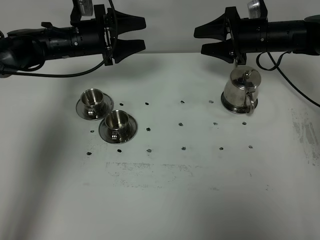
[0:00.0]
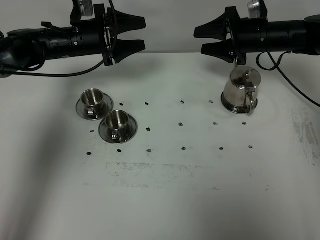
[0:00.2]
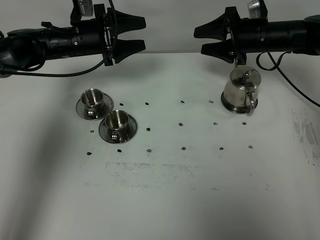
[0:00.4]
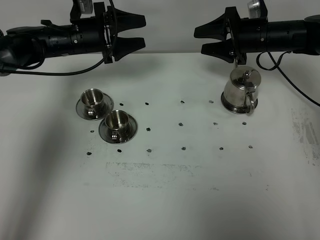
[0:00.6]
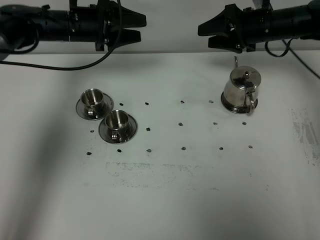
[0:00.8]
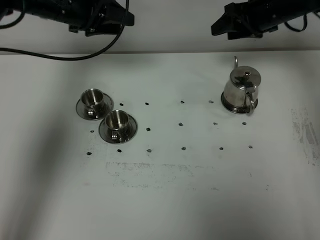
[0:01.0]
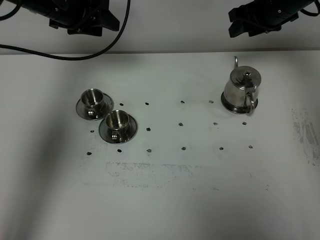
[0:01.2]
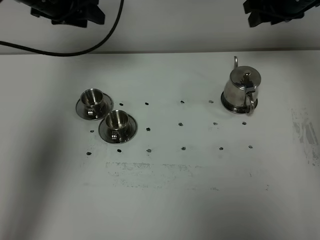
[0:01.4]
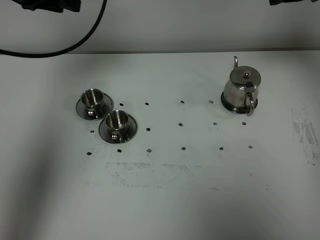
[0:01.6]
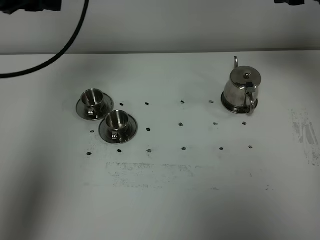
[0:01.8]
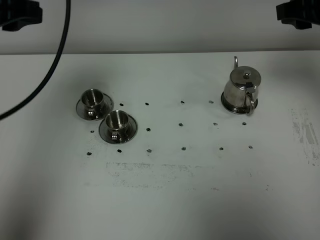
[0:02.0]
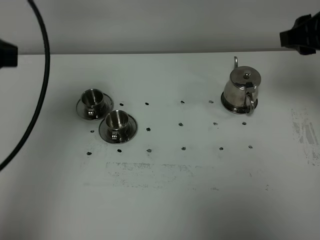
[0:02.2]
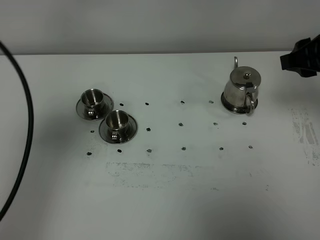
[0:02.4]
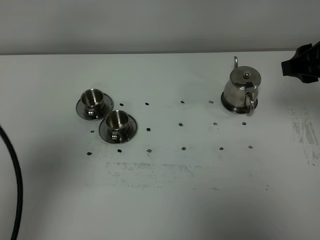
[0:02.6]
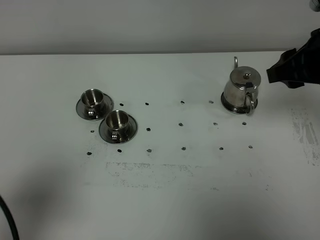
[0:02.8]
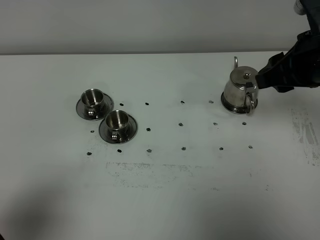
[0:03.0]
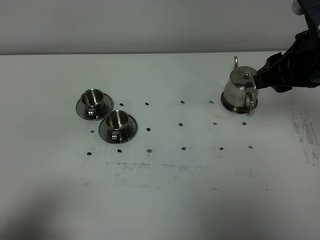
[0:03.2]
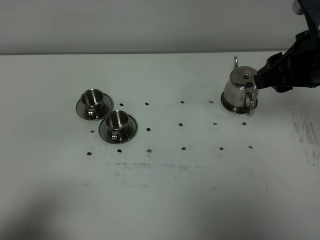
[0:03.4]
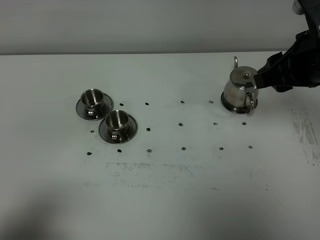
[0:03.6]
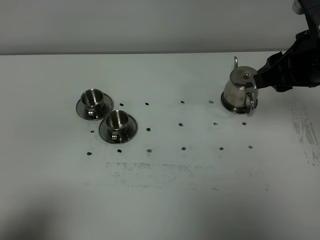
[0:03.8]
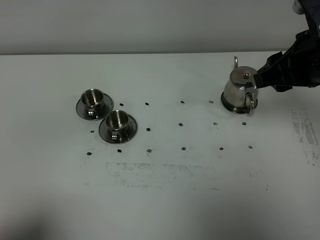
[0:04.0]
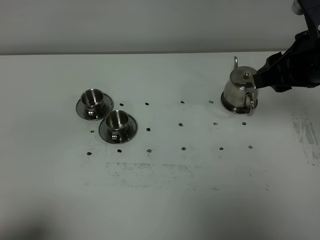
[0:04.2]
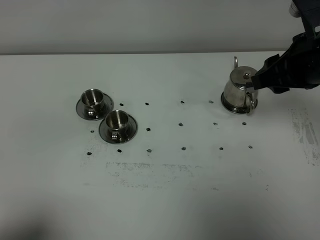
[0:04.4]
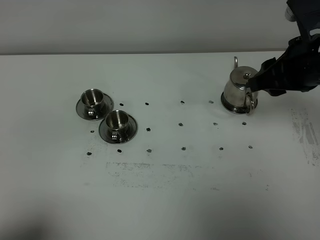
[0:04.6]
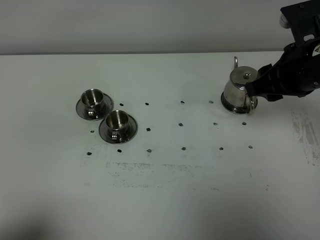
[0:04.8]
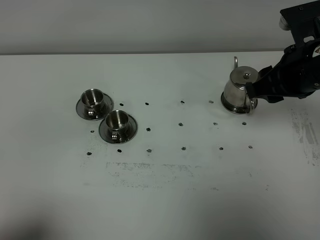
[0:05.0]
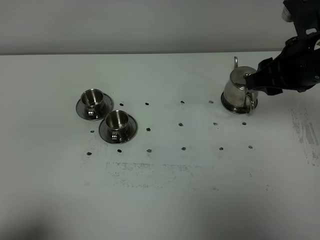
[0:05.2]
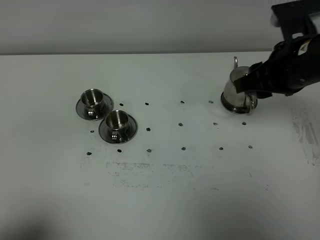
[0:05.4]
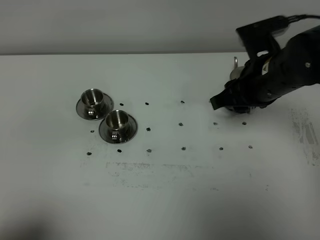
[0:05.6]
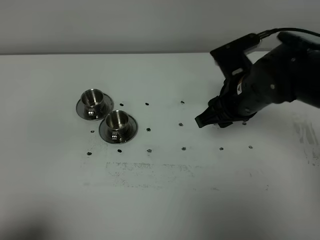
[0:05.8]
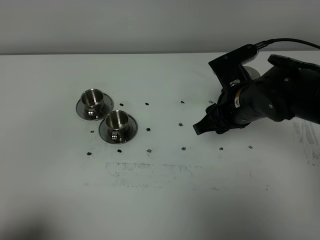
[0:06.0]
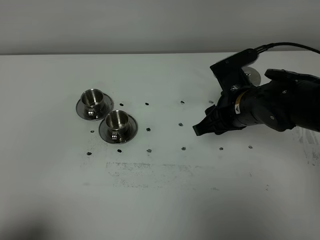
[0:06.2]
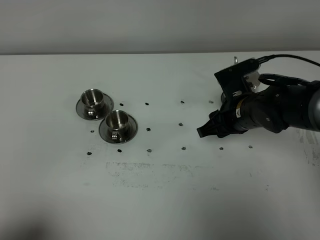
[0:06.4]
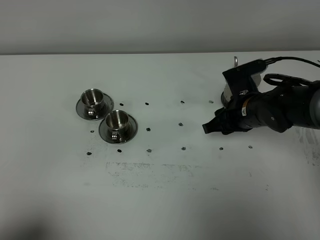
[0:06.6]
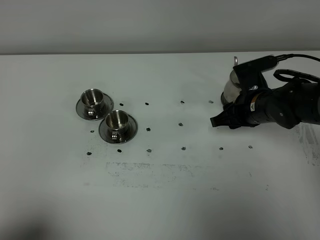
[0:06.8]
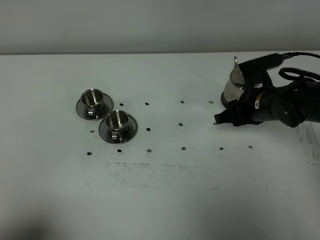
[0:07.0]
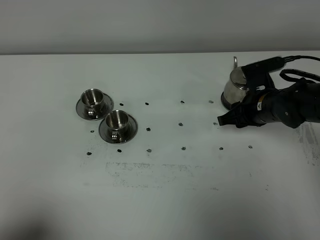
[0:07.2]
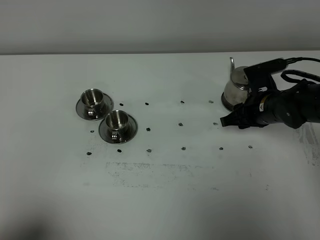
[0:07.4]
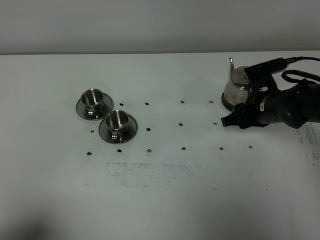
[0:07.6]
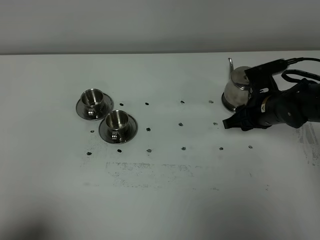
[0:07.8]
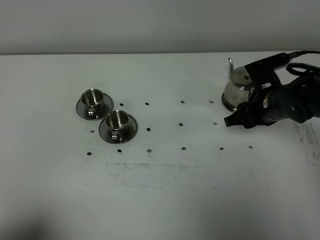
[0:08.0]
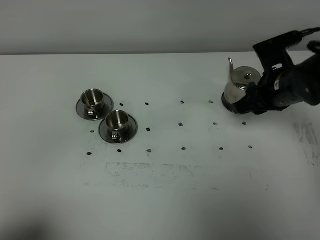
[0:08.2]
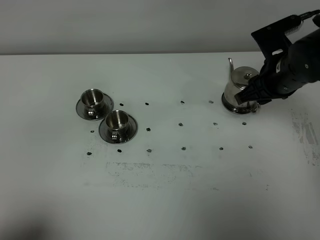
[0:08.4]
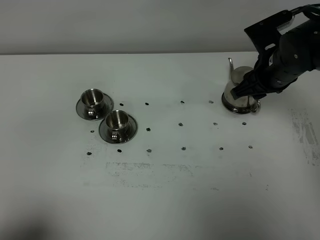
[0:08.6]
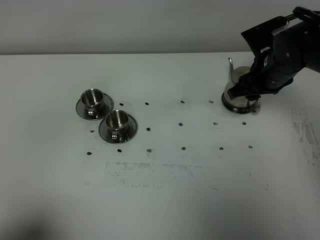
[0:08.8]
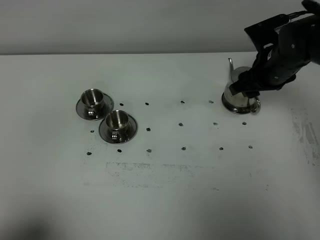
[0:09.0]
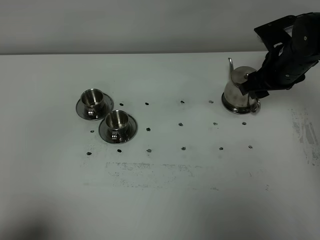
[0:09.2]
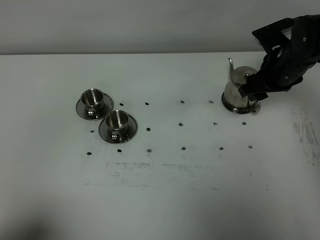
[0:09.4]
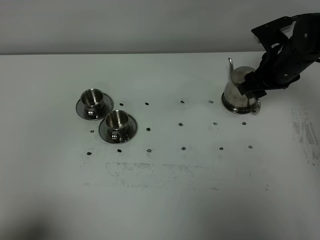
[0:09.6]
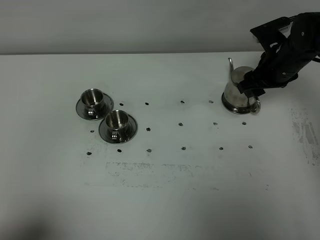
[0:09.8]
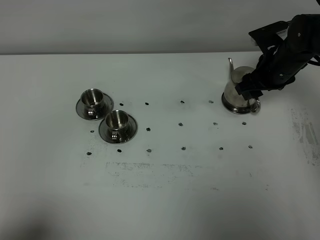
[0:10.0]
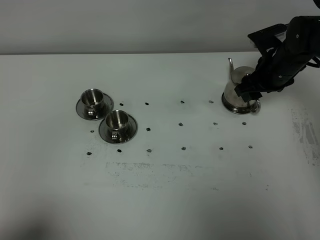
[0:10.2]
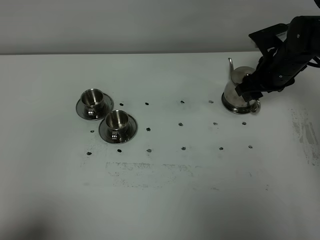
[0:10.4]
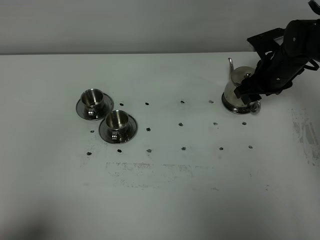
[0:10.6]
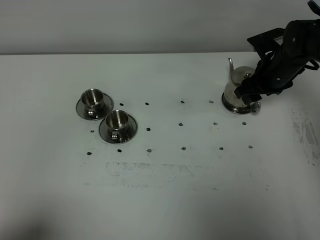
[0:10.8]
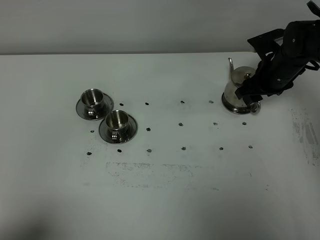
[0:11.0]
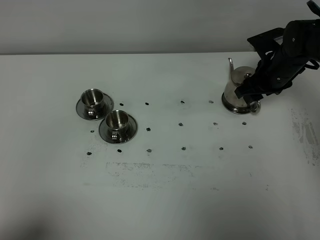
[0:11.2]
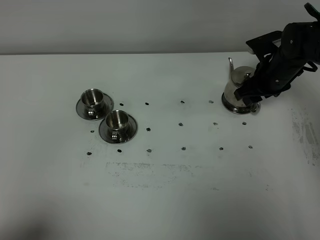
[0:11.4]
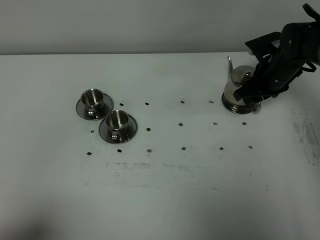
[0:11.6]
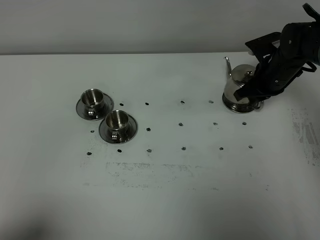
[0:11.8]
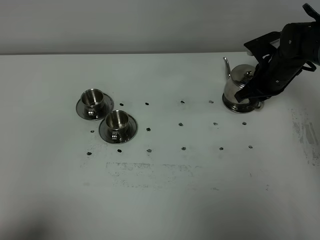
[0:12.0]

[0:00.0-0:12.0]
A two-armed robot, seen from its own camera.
Task of the whole recording: grasp the stainless steel teapot and pour the tea into the two stainless steel teacups one by one, put the stainless steel teapot back in its original place.
0:00.0 to 0:01.6: The right gripper moves upward and backward, approximately 20 cm. Meanwhile the left gripper goes roughly 20 cm upward, and closes up.
0:01.6 to 0:03.0: The right gripper shifts roughly 15 cm backward and downward; the left gripper moves backward, approximately 35 cm.
0:03.0 to 0:04.4: The left gripper moves backward, about 5 cm.
0:04.4 to 0:06.0: The right gripper heads downward and to the left, covering about 15 cm.
0:06.0 to 0:07.6: The right gripper is displaced downward and to the right by some 10 cm.
0:07.6 to 0:09.0: The right gripper shifts approximately 10 cm upward.
0:09.0 to 0:10.4: The right gripper changes place by about 5 cm.
0:10.4 to 0:12.0: The right gripper closes up.

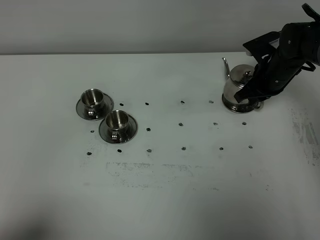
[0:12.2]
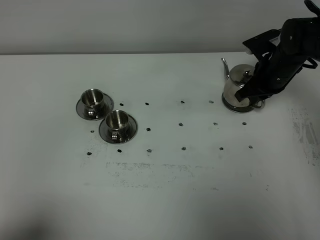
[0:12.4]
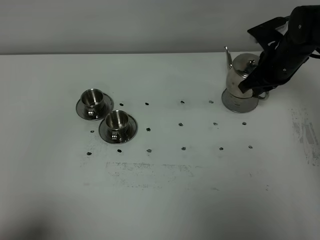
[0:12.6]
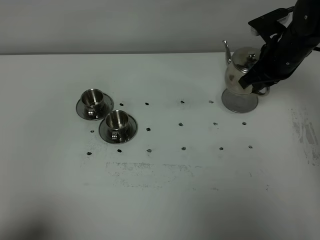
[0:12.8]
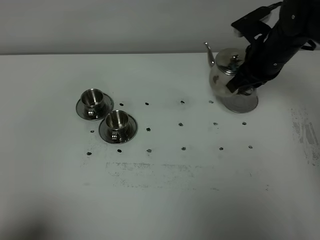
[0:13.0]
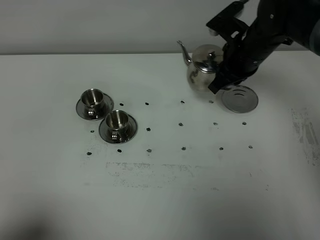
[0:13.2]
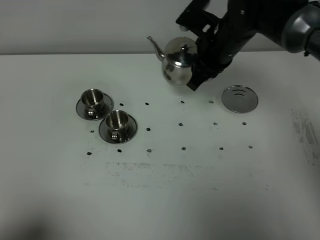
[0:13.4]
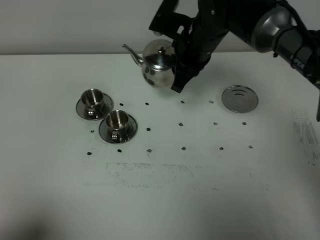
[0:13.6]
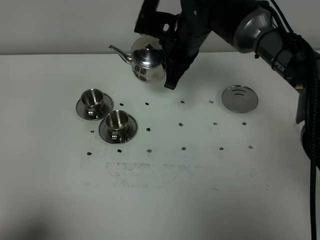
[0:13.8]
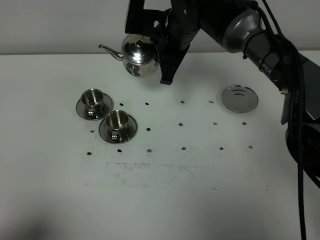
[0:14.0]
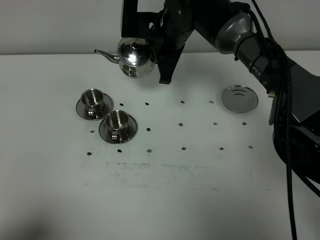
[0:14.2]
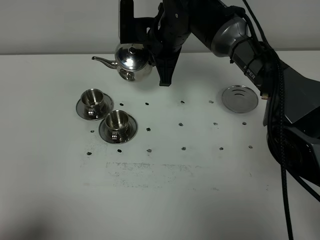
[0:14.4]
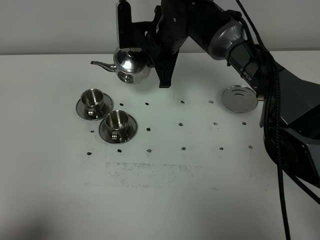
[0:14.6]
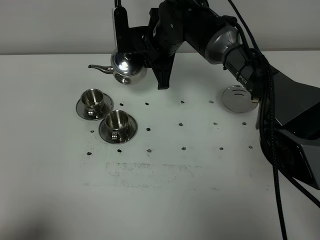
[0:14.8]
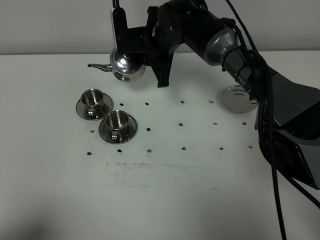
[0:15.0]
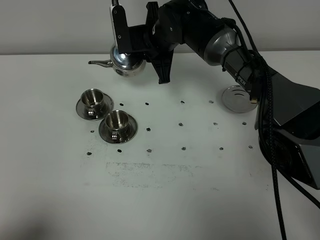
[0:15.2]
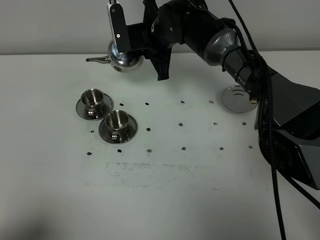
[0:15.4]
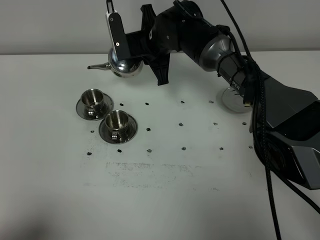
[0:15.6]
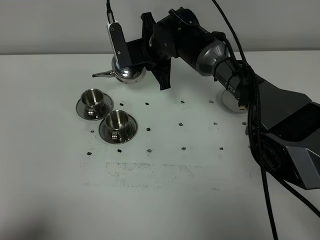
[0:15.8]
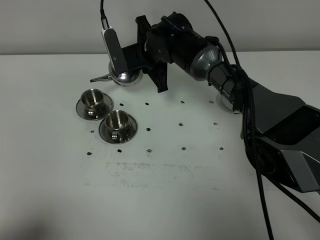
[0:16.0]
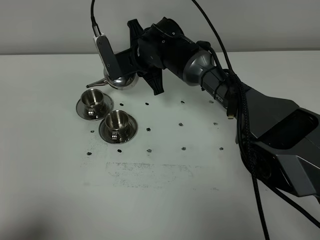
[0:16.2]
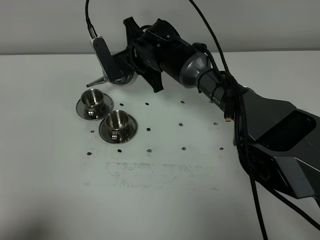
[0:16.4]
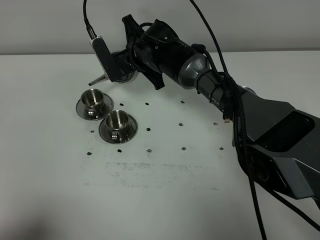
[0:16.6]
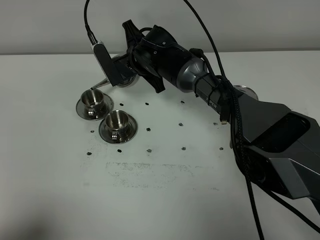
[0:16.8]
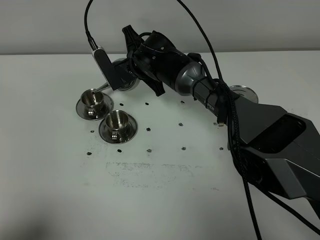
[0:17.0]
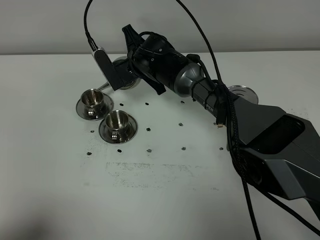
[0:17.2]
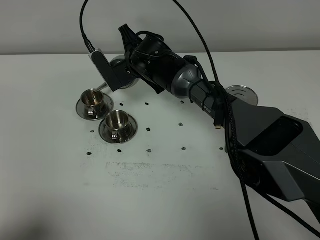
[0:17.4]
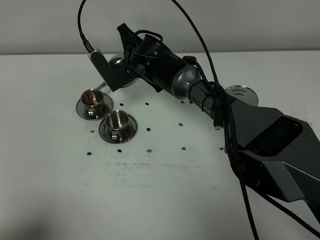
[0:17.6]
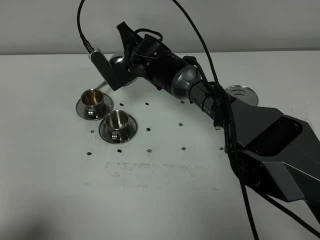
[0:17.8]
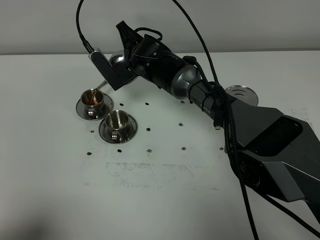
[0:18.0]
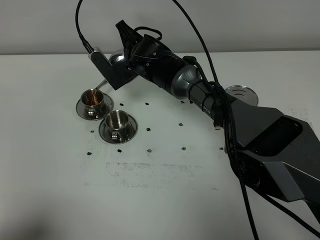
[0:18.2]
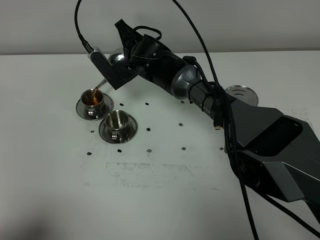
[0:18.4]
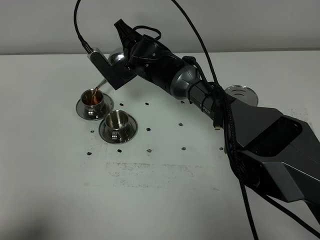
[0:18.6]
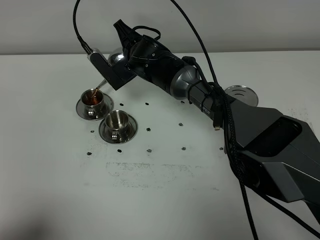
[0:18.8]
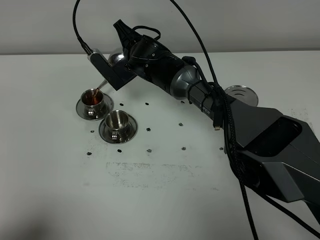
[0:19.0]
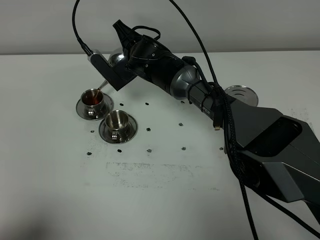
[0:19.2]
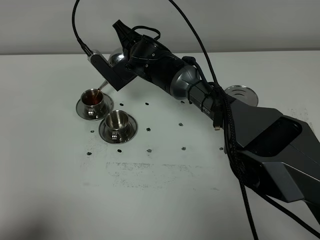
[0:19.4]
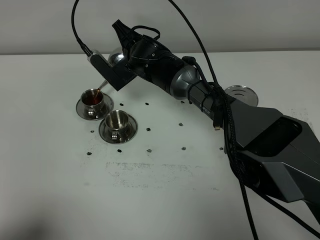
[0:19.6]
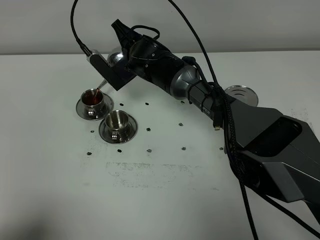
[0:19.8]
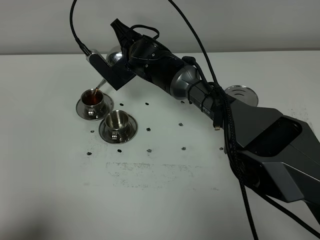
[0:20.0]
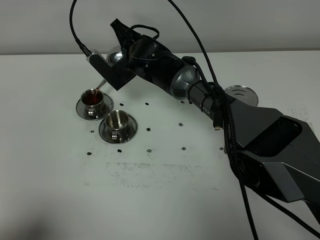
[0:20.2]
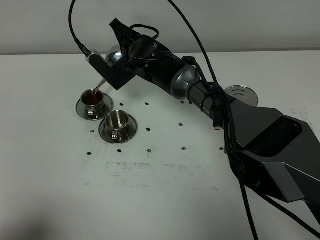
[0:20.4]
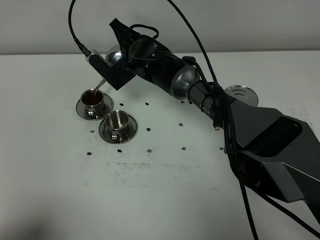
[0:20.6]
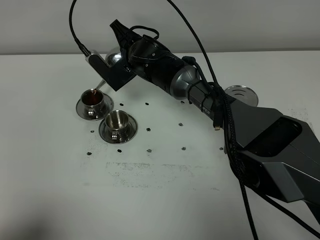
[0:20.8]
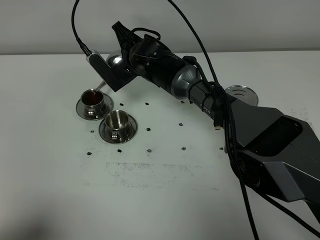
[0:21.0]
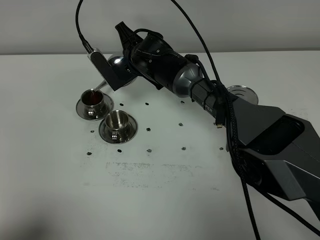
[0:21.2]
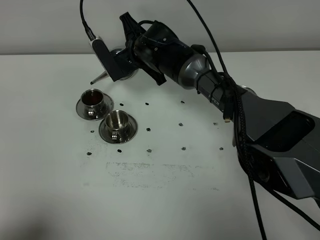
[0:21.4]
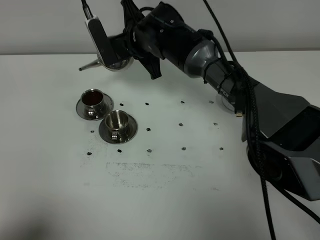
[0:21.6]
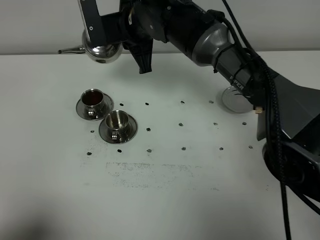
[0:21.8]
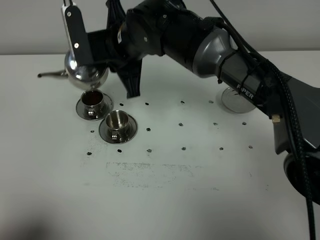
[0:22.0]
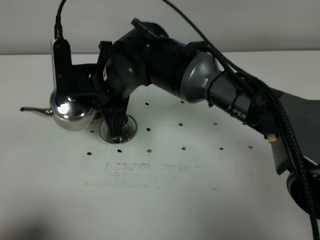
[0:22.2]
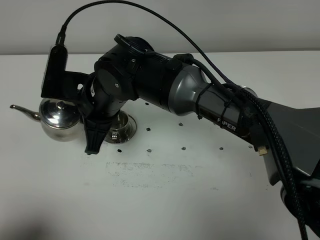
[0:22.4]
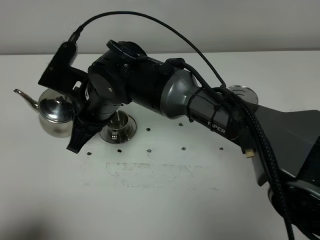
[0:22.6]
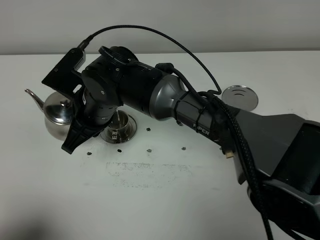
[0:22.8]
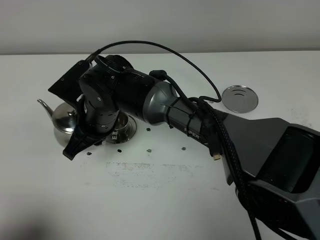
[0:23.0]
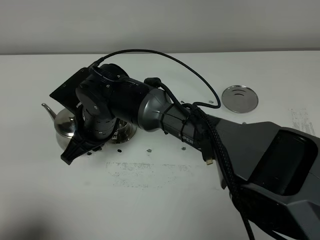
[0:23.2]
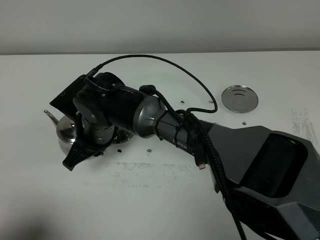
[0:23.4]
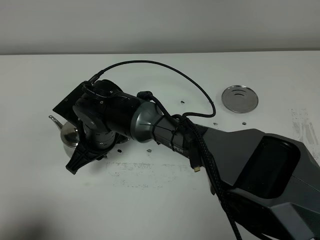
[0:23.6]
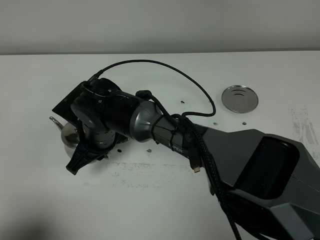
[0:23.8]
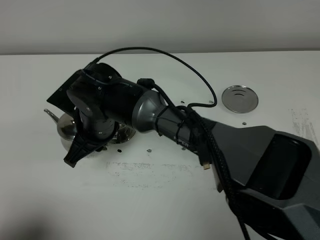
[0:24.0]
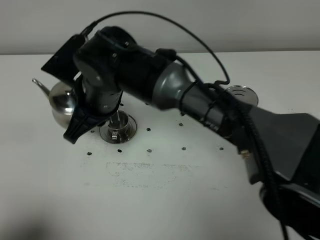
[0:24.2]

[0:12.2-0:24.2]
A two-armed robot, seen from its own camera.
Task of the whole recording: grasp the stainless steel teapot and pour the tea into the two stainless steel teacups one by one, put the stainless steel teapot back in its original place.
0:12.2 to 0:13.8: The right gripper heads to the left and upward, covering approximately 20 cm.
0:13.8 to 0:15.2: The right gripper changes place by approximately 5 cm.
0:15.2 to 0:16.6: The right gripper shifts by some 5 cm.
0:16.6 to 0:21.2: The grippers make only small movements.
0:21.2 to 0:22.6: The right gripper heads backward and to the left, covering approximately 15 cm.
0:22.6 to 0:24.2: The right gripper moves approximately 10 cm downward and comes back.
